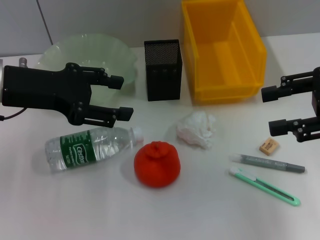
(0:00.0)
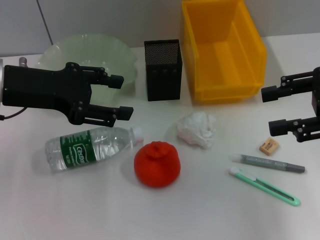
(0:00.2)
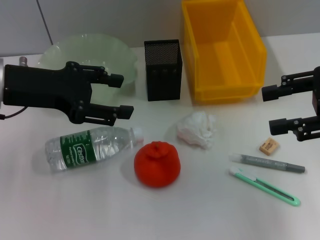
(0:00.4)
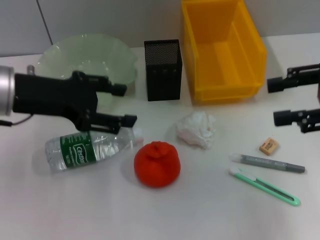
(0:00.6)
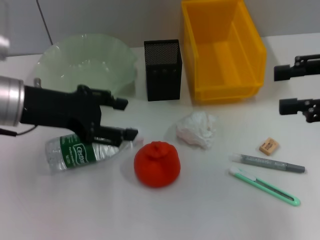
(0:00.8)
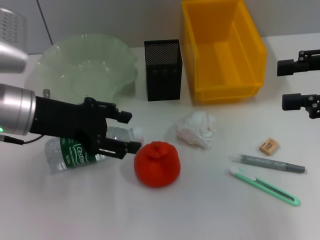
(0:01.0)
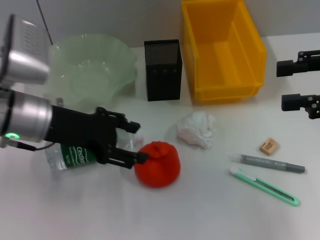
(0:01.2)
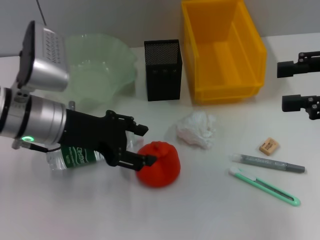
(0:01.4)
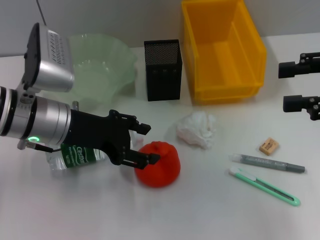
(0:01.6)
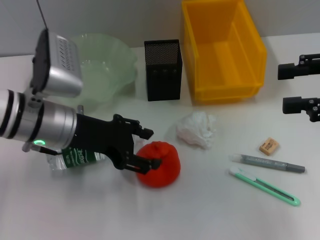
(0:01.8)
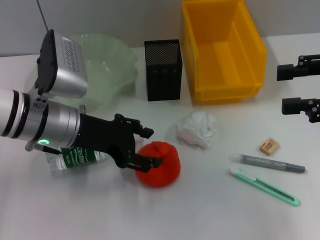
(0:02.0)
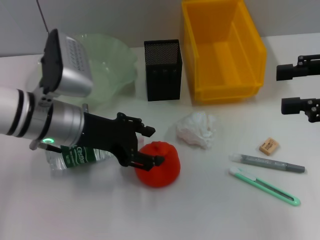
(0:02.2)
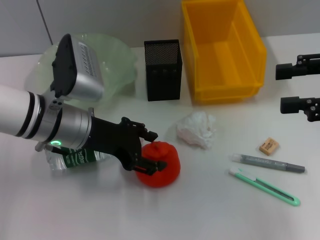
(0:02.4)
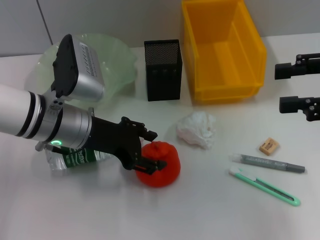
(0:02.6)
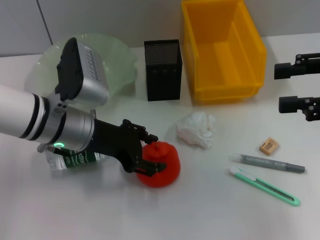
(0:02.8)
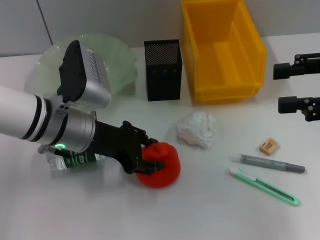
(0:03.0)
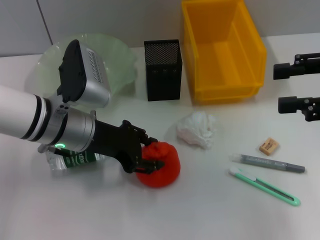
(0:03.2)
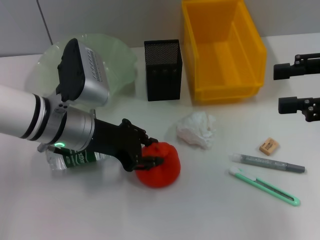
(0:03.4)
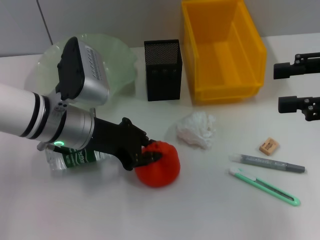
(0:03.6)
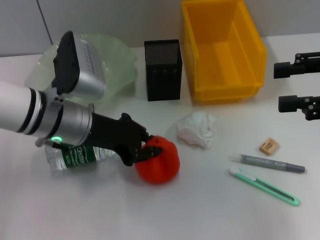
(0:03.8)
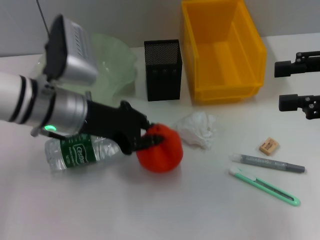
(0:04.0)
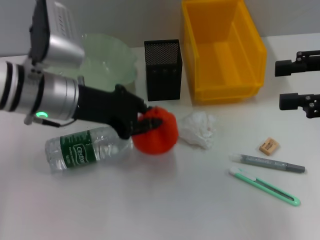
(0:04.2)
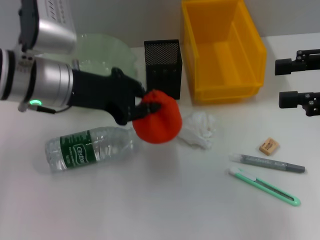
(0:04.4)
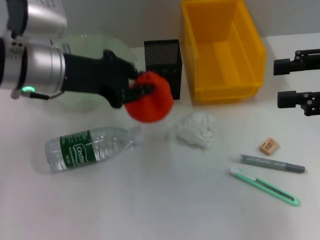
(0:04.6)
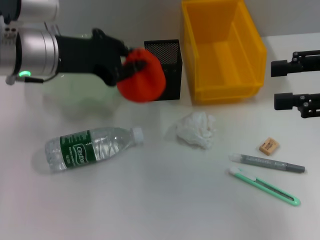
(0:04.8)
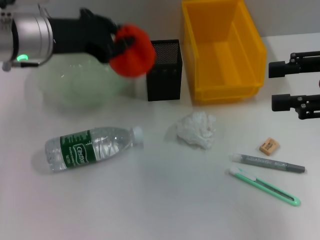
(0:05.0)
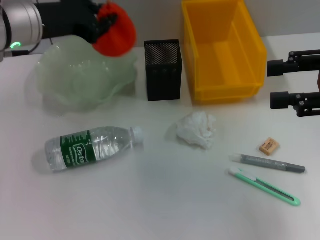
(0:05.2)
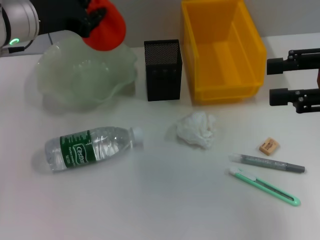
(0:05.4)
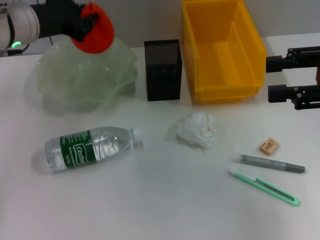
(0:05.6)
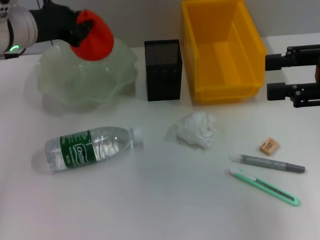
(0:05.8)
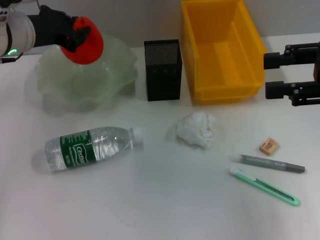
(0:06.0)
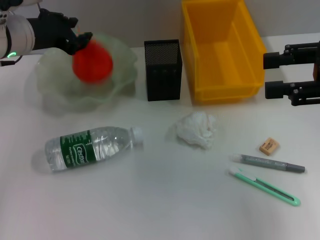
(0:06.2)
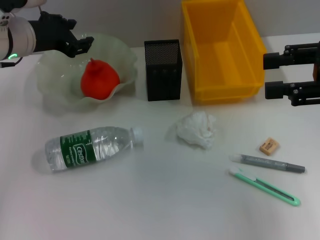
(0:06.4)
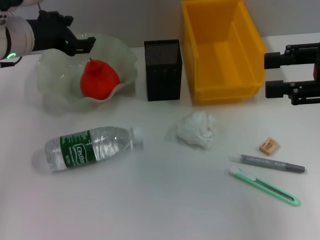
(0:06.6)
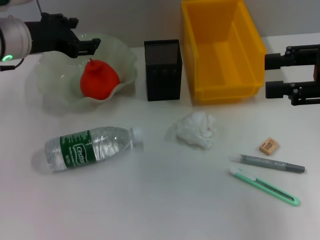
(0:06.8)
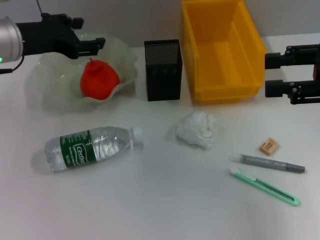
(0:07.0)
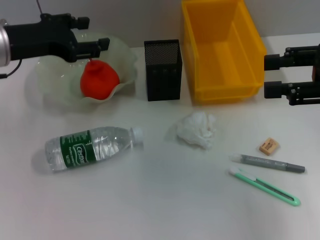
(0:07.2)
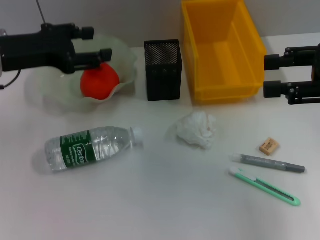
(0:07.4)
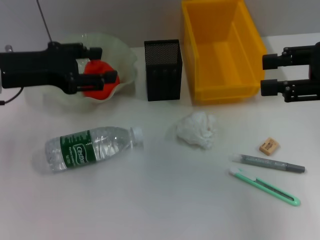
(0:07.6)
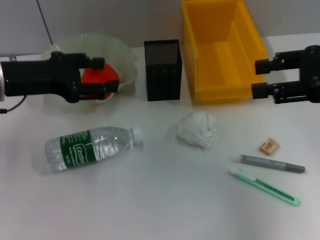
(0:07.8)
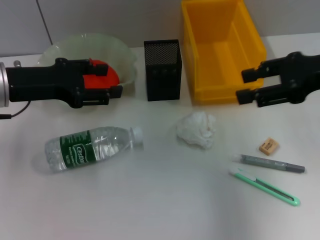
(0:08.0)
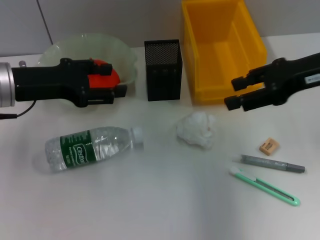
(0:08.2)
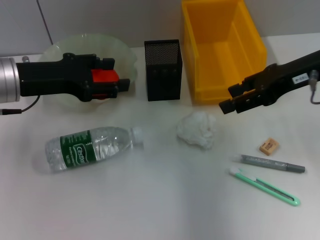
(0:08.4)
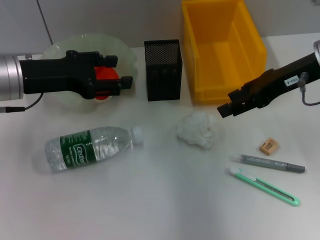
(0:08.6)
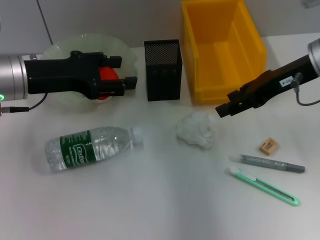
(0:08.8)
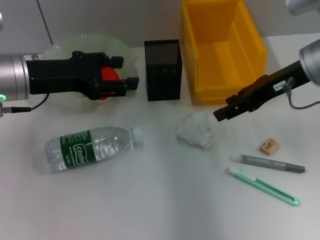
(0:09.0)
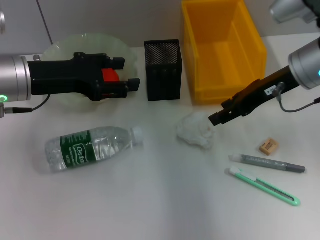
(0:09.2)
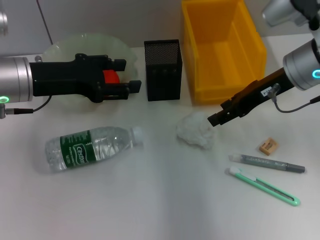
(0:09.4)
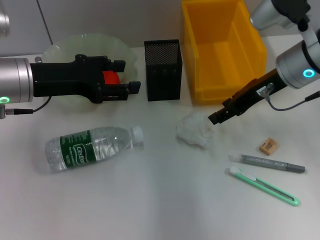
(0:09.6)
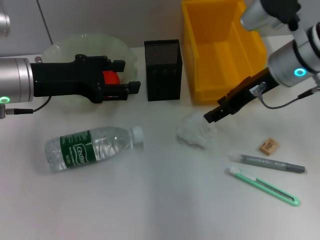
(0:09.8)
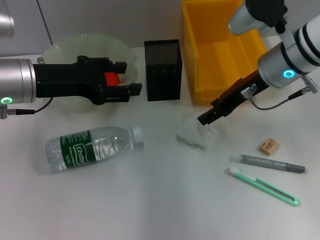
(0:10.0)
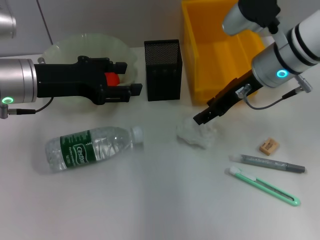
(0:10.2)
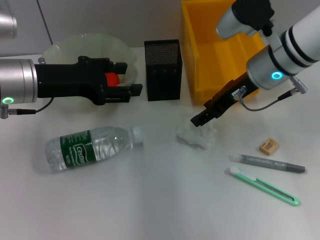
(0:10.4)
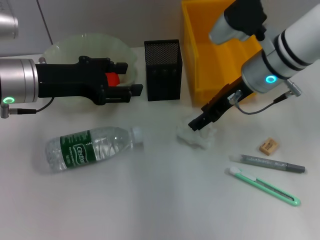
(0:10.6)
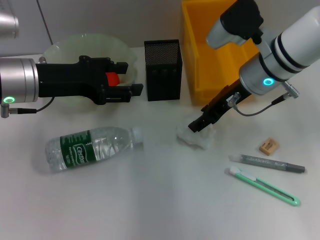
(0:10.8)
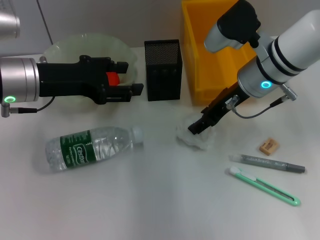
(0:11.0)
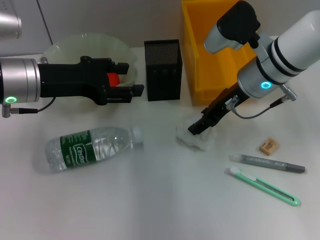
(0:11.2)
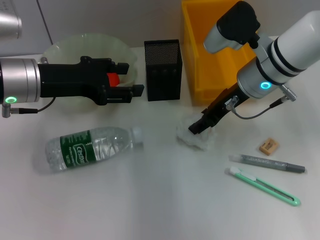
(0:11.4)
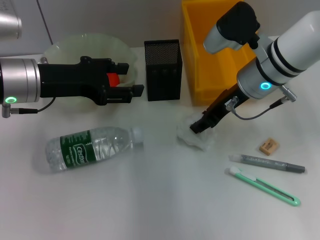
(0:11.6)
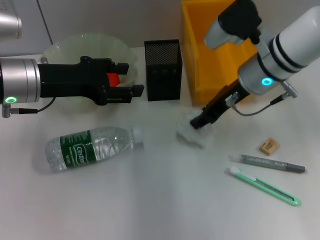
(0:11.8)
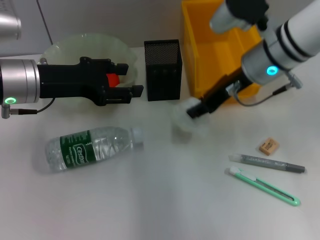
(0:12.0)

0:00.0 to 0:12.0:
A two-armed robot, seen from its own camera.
Step, 0:00.0 to 0:03.6: Grab the orange with the left hand.
Step, 0:03.8 to 0:06.2: Place the orange into the fruit bowl with the left hand.
Step, 0:06.6 to 0:11.6: Grab the paper ball with the right hand.
0:00.0 to 0:01.6: The left gripper moves downward and to the right, some 10 cm.
0:01.6 to 0:03.0: There are only small adjustments of the grippers.
0:03.0 to 0:04.4: The left gripper shifts some 5 cm upward, and closes up.
0:04.4 to 0:06.0: The left gripper moves forward, about 5 cm.
0:06.0 to 0:07.6: The left gripper travels backward by approximately 5 cm, and opens up.
0:07.6 to 0:09.0: The right gripper shifts roughly 10 cm forward and to the left.
0:09.0 to 0:10.4: The right gripper goes some 5 cm to the left.
0:10.4 to 0:12.0: The right gripper closes up.

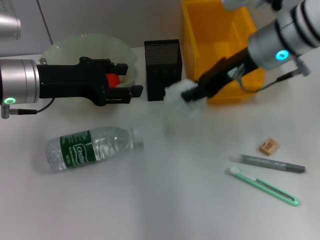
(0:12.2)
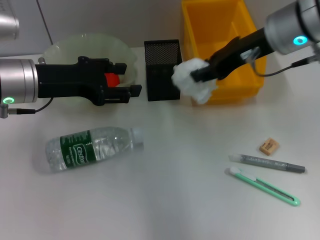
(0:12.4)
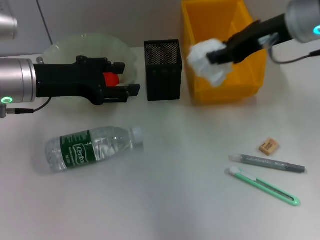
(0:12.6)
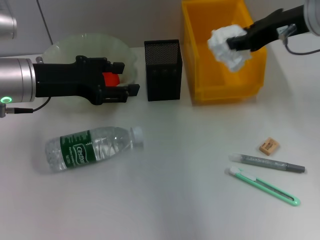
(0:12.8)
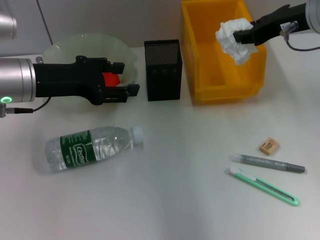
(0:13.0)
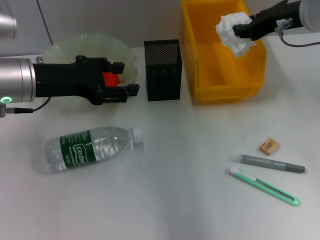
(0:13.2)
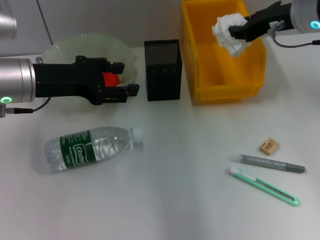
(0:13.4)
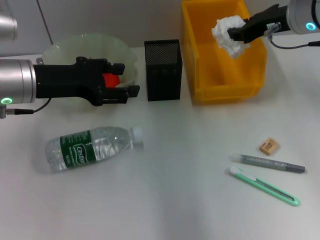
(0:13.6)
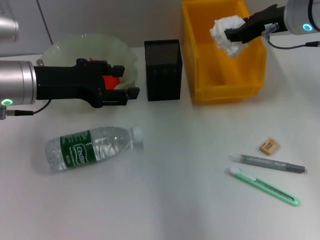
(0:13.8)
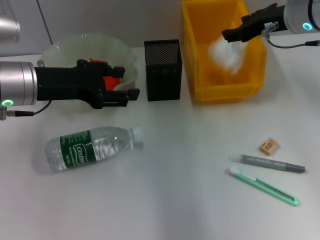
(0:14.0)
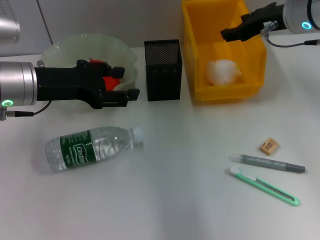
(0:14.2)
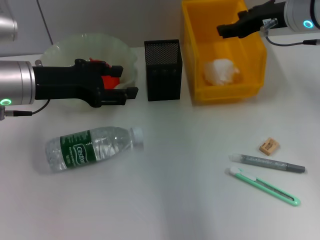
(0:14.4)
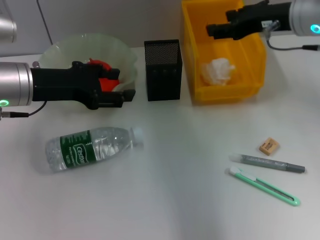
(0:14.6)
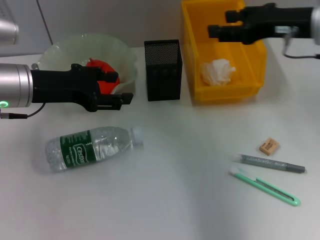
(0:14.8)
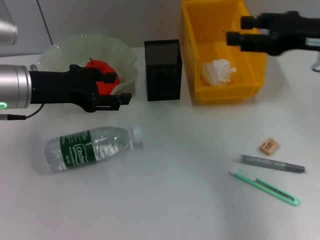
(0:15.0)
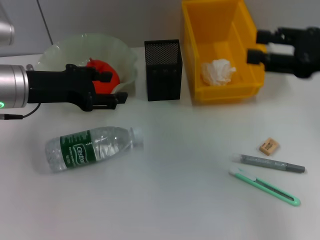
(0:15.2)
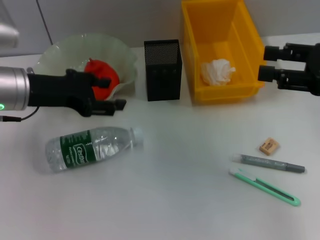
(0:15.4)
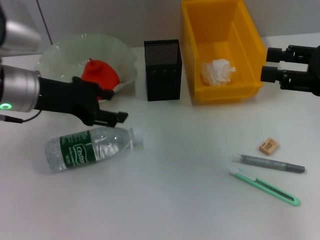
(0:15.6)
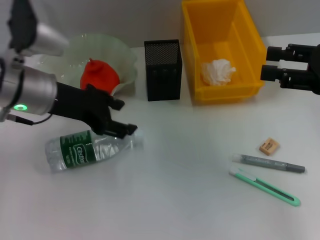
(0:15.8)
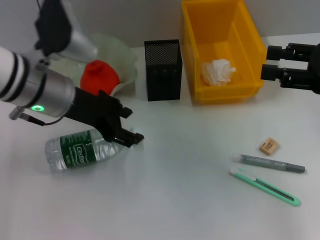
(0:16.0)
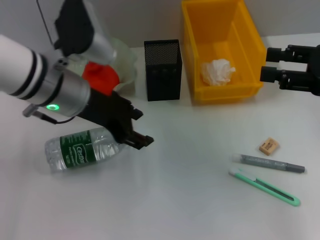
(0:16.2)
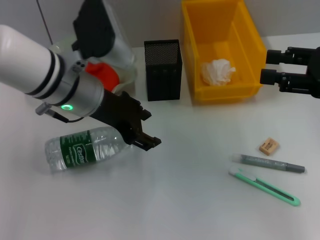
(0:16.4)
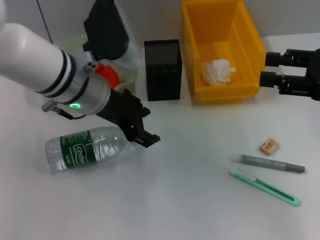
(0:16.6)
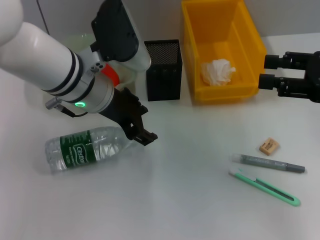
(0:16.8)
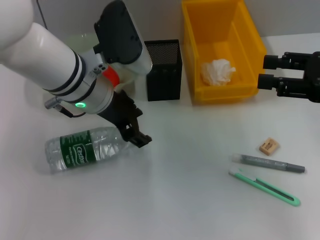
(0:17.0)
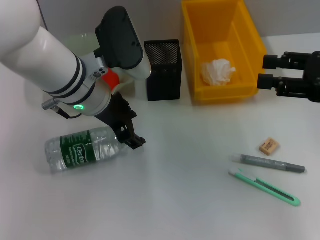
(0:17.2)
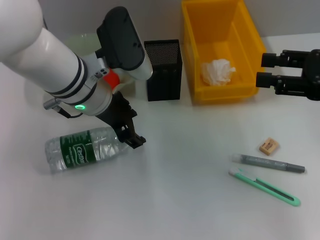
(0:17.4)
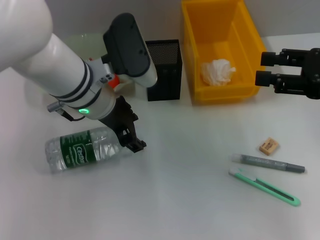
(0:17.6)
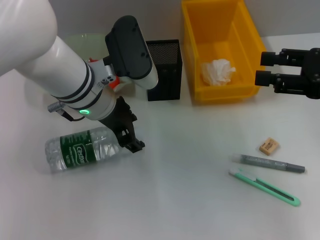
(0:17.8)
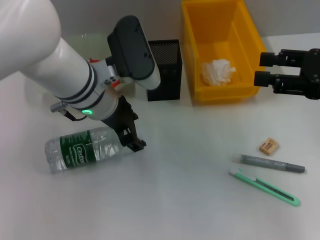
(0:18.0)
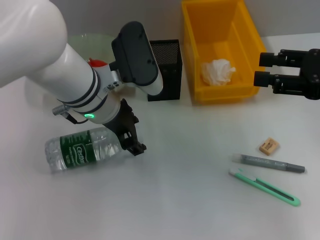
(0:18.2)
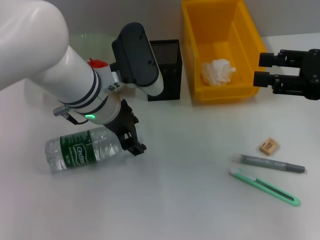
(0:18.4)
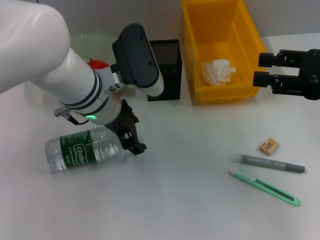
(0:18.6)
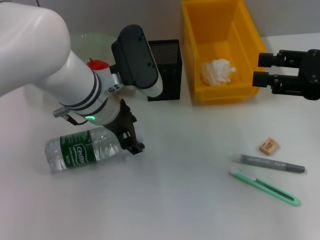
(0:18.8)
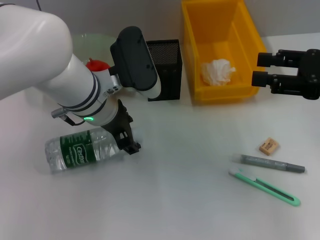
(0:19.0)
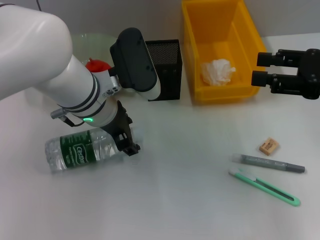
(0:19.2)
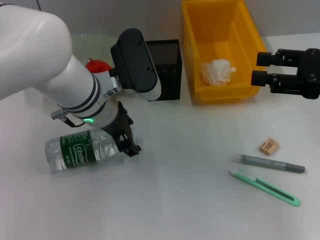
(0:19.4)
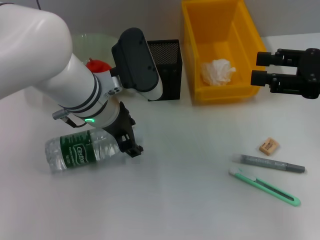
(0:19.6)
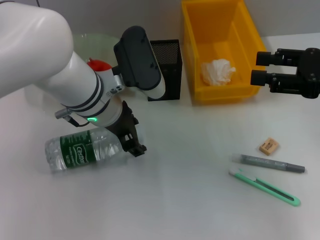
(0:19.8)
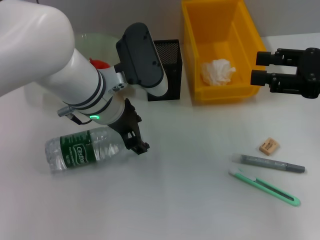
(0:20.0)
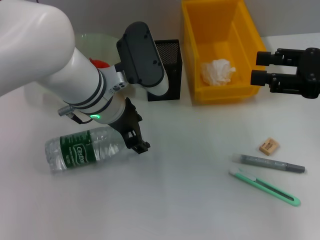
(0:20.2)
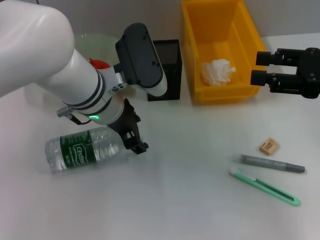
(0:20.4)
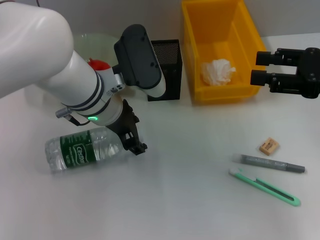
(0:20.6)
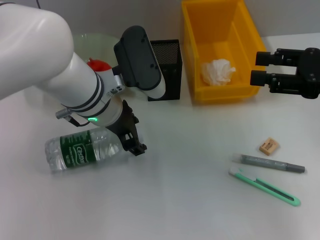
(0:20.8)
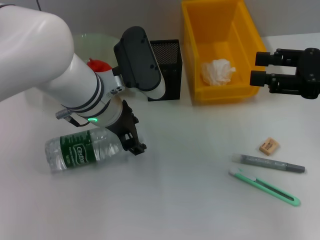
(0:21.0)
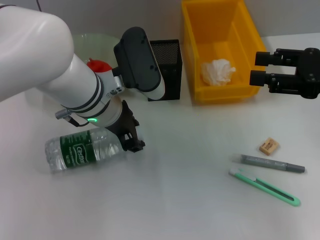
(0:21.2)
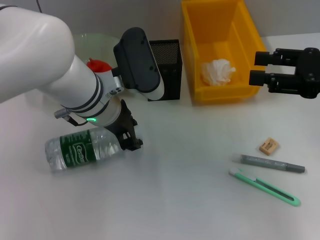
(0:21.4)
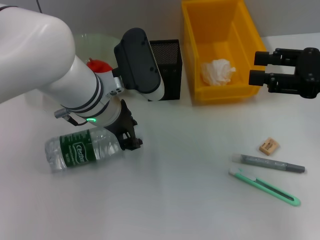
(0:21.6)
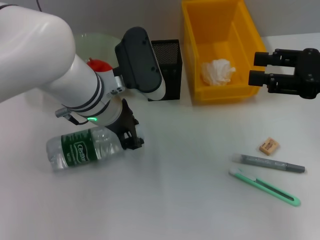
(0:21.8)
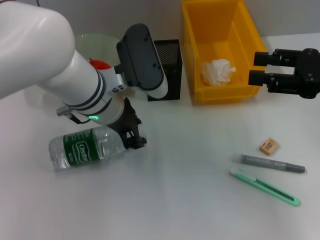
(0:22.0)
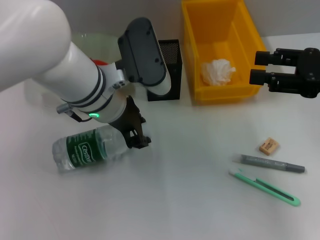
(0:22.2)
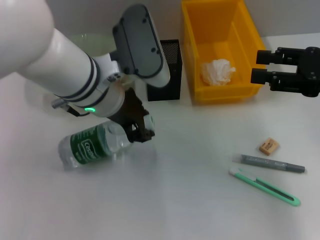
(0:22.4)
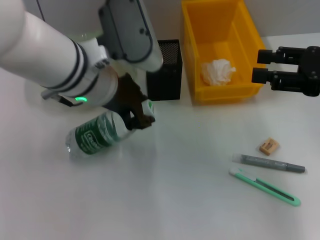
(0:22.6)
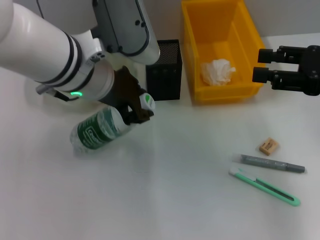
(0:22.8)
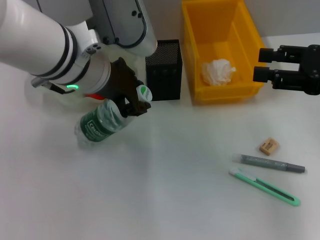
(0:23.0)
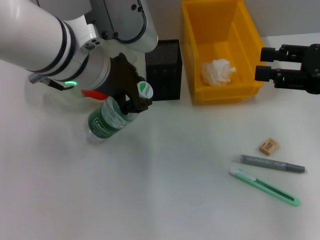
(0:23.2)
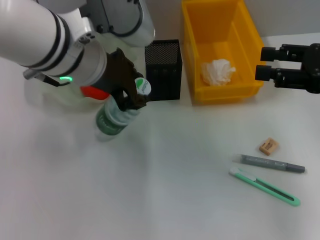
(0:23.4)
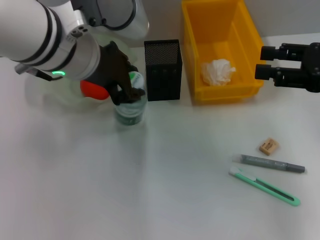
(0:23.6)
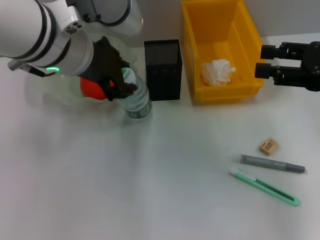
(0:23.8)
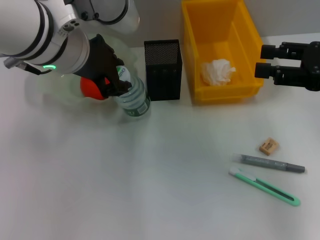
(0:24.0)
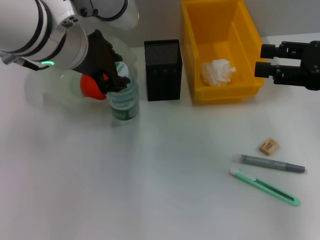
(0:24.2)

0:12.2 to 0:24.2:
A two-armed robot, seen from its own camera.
Step, 0:12.2 to 0:14.4: Place the paper ball into the trash can with the right hand.
Step, 0:14.8 to 0:21.8: Grab the water bottle with the left hand.
0:12.2 to 0:13.8: The right gripper heads to the right, covering some 5 cm.
0:13.8 to 0:15.2: The right gripper goes approximately 15 cm backward and to the right, and opens.
0:15.2 to 0:16.6: The left gripper goes some 10 cm to the right.
0:16.6 to 0:18.2: The grippers make only small movements.
0:18.2 to 0:21.2: Neither gripper changes place.
0:21.2 to 0:22.6: The left gripper goes some 5 cm upward, and closes.
0:22.6 to 0:24.2: The left gripper shifts about 5 cm upward.
